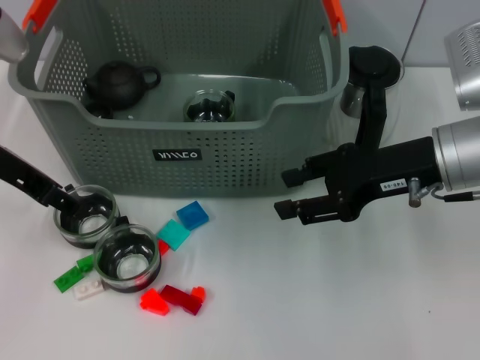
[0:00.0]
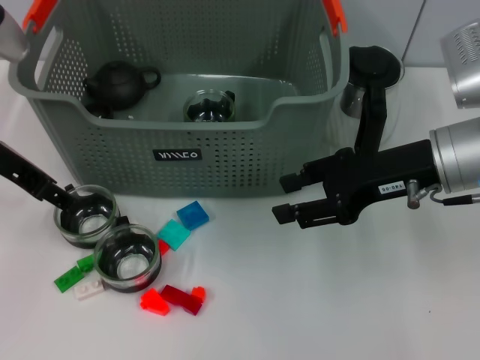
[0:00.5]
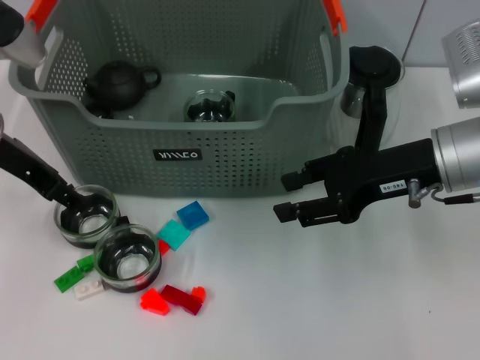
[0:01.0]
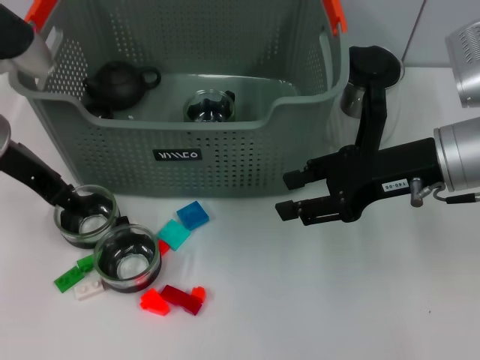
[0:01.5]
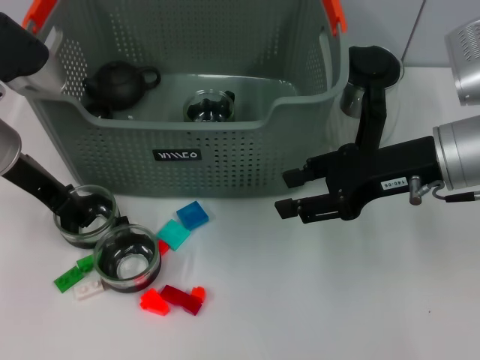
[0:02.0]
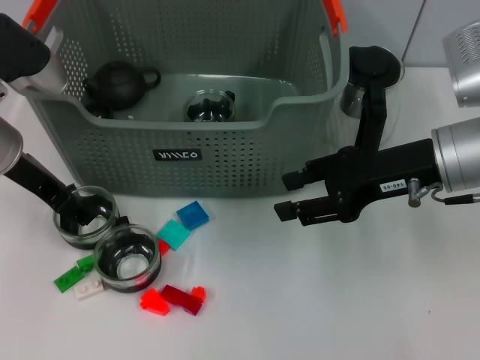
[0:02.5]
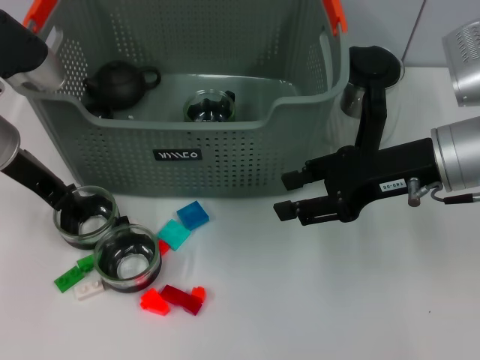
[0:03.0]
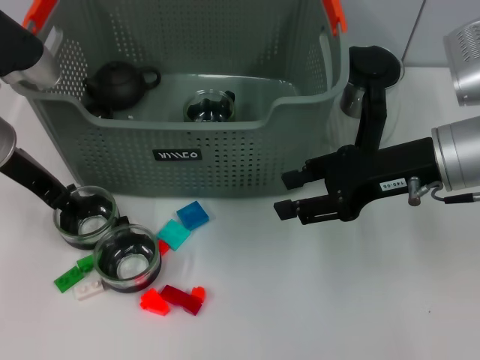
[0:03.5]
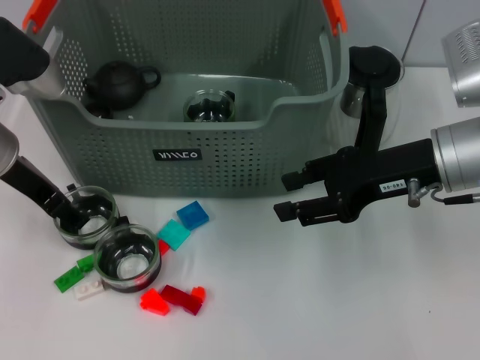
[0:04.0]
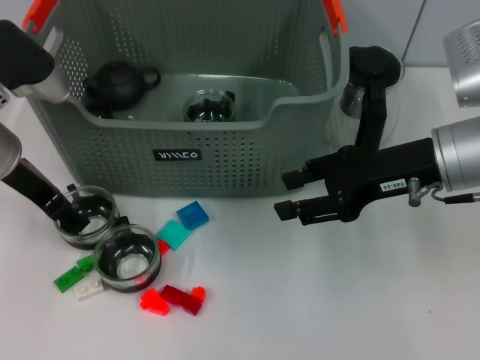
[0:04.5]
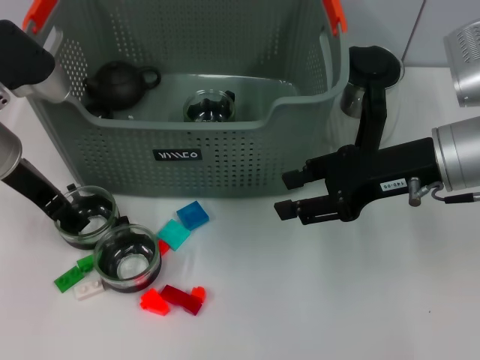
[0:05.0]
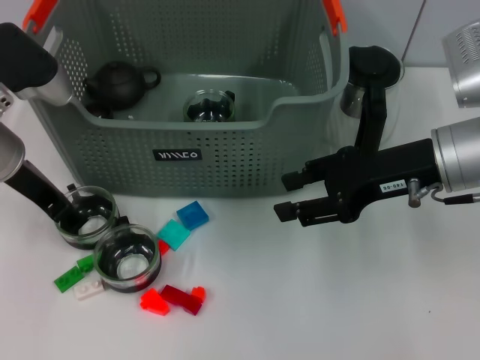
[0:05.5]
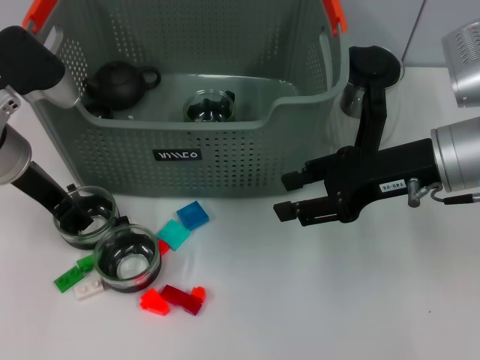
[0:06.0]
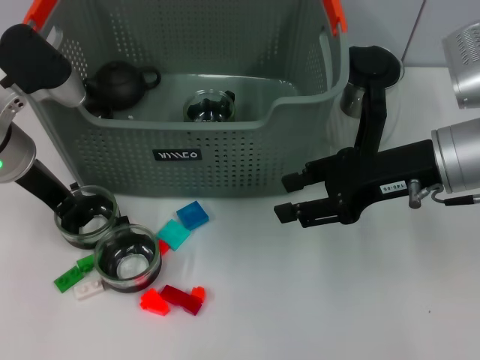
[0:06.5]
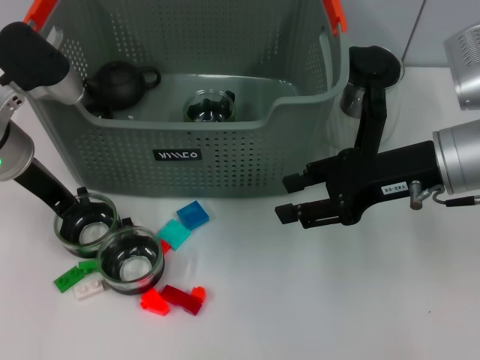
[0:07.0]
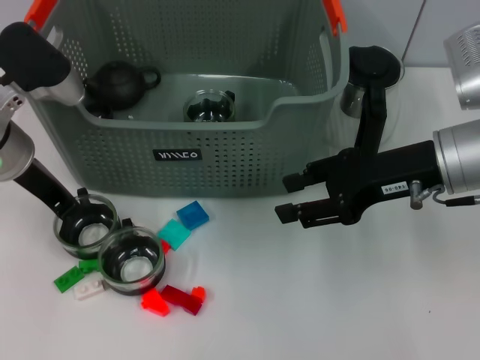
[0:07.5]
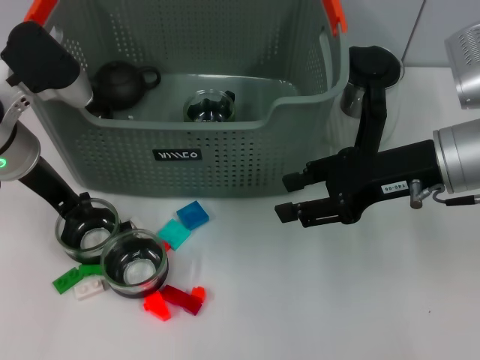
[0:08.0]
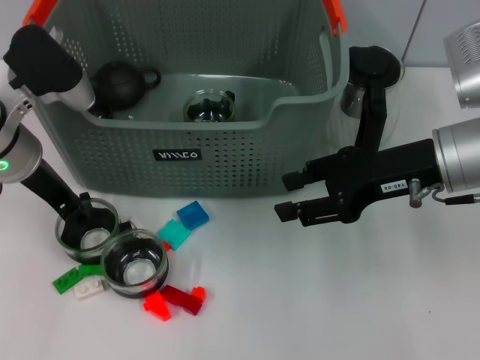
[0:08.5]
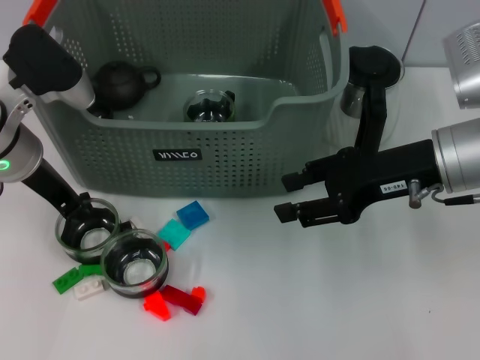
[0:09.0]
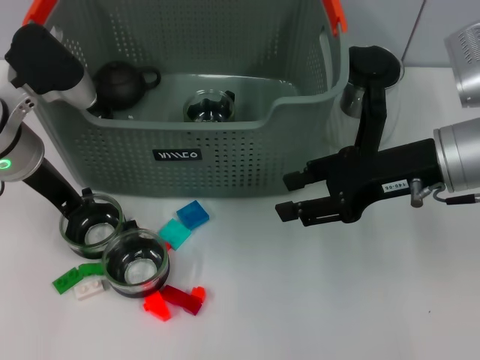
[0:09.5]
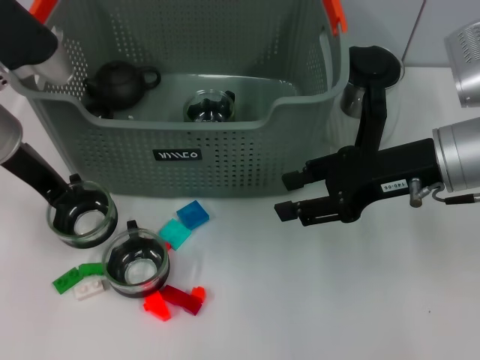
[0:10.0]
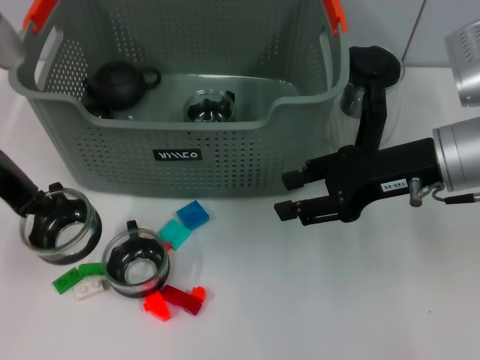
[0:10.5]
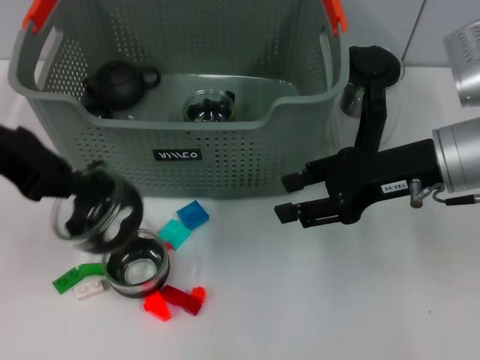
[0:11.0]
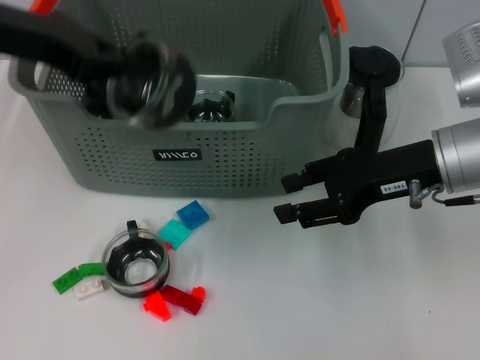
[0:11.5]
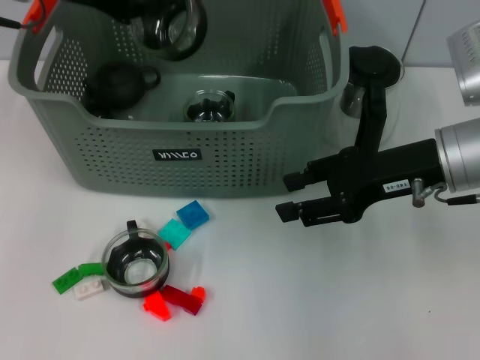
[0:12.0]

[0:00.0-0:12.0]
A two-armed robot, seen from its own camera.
Task of the whole recording: pick up the teacup on the table and place it into the storage bin, pick up the block on the table and place it into the storage bin.
Step, 0:00.0 to 0:09.5: Grasp the cup with left gripper.
0:00.0 to 0:02.0: The grippers make only small movements.
0:02.0 to 0:04.0: Neither gripper changes place.
0:04.0 to 0:06.0: Both grippers stay put.
0:06.0 to 0:08.0: The left gripper closes up.
0:08.0 to 0:10.0: There are only small adjustments of the grippers.
0:10.0 to 0:12.0: The left gripper is displaced upward and forward by approximately 10 cm.

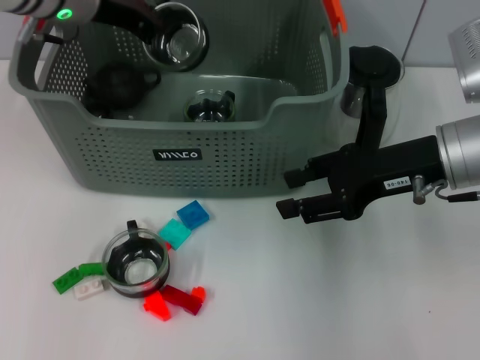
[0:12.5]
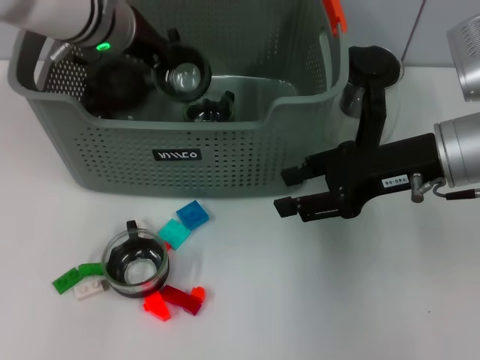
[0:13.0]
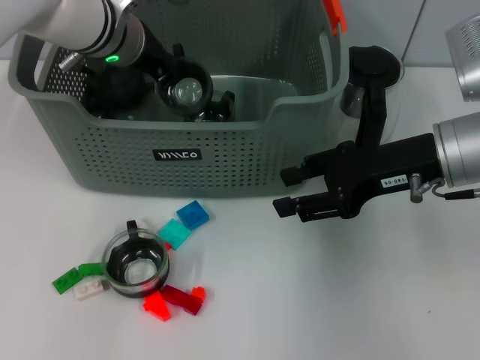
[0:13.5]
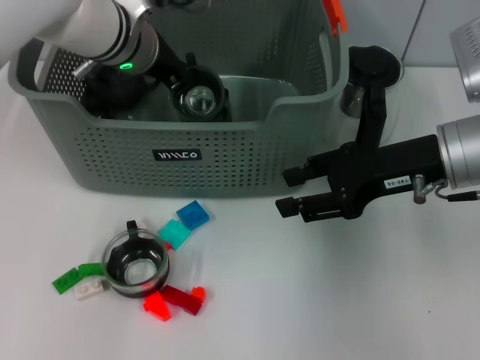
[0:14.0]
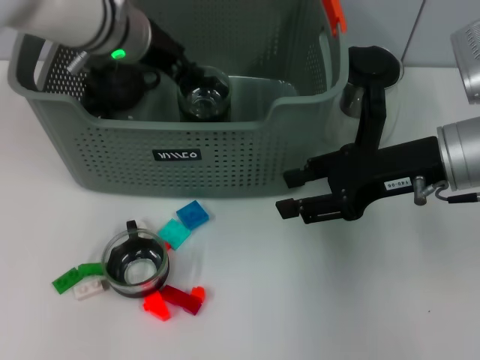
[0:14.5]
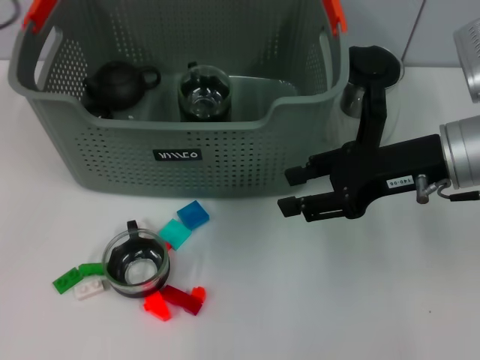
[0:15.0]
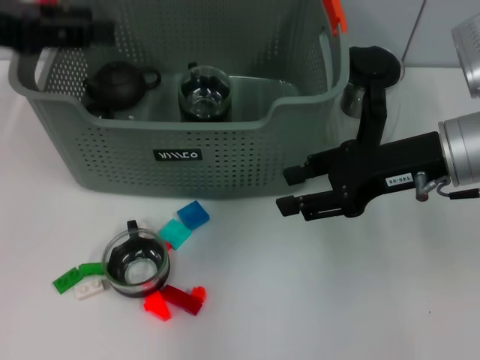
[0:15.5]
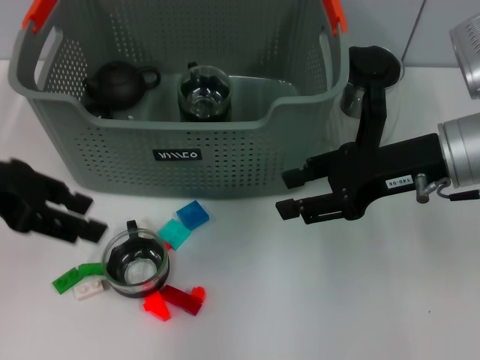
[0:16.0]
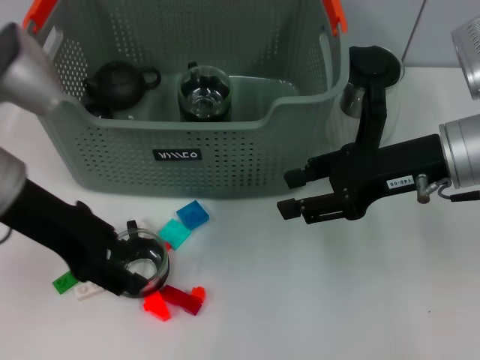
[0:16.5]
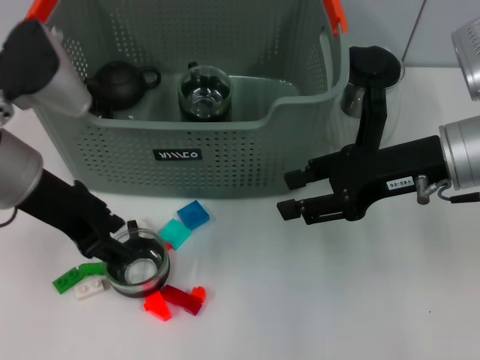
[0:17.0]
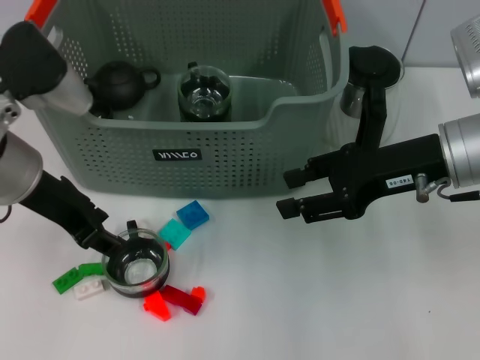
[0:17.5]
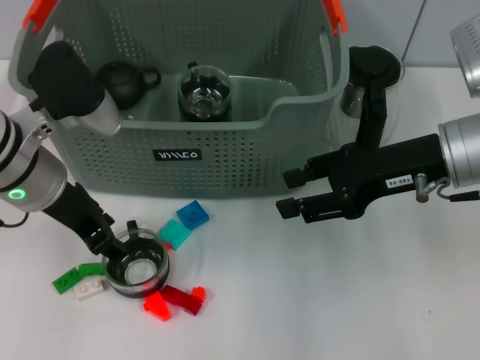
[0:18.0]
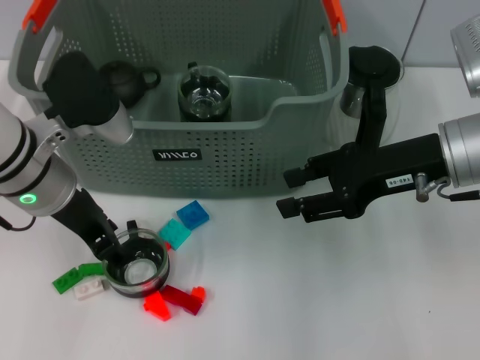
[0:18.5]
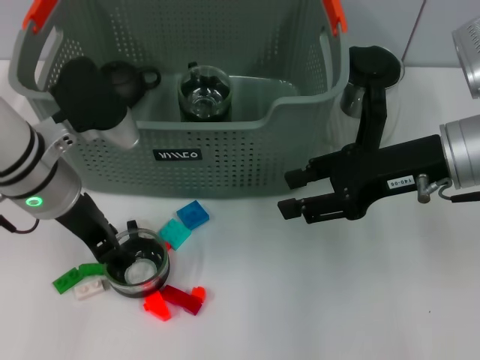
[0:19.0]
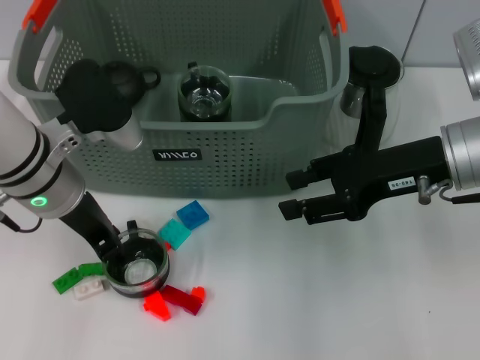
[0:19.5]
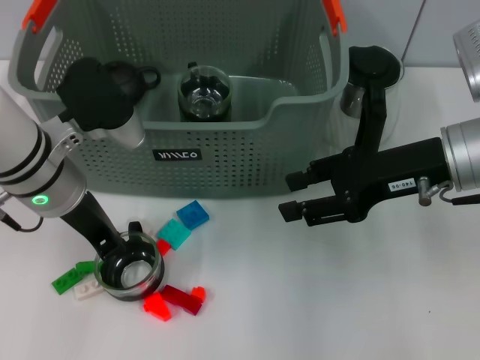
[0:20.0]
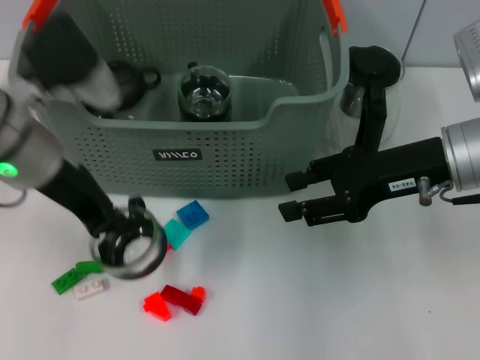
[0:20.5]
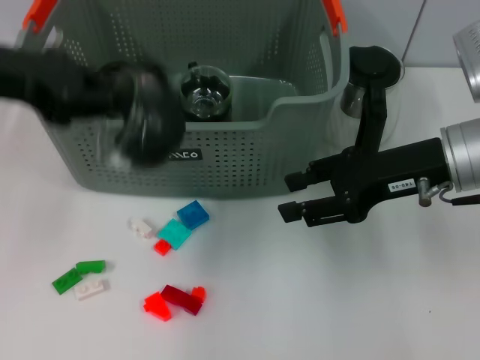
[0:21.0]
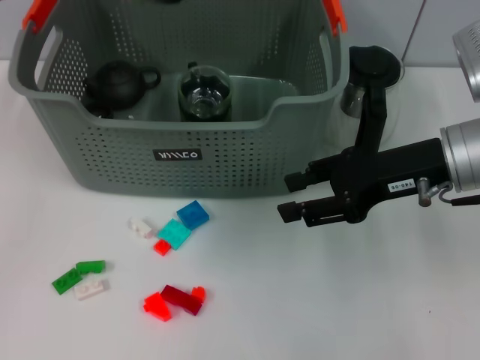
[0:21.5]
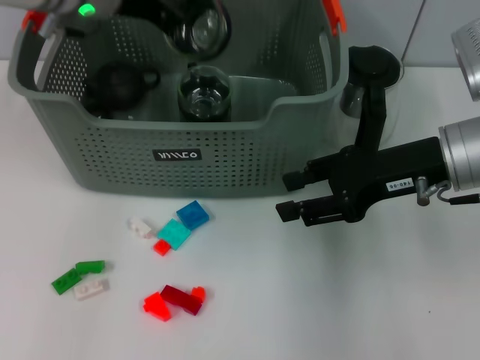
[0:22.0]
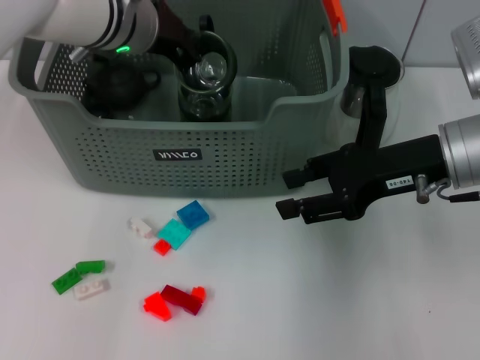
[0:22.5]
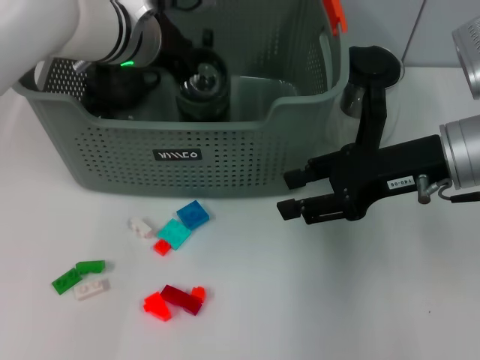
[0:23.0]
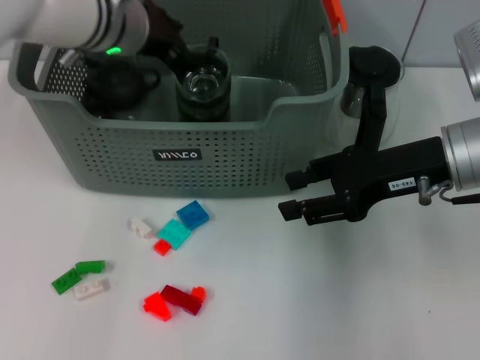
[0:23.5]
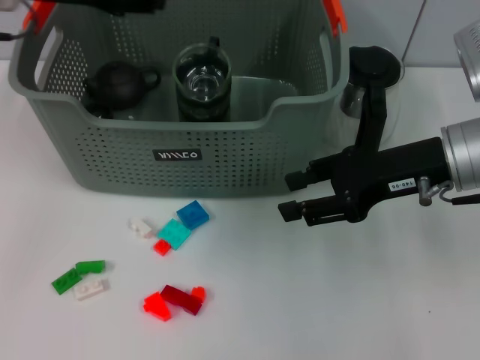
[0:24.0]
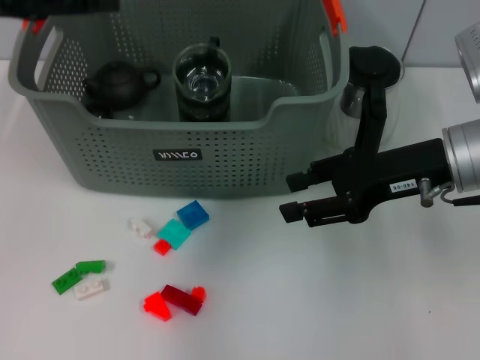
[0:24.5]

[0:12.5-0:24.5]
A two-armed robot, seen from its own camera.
Task of the whole recording: pick up the teacup on the table and place it into the storage bin, pick up the block on the table and place it into the storage bin.
Step, 0:12.5 to 0:14.5: Place the cup in the storage box with left gripper.
Step, 0:15.0 to 0:19.5: Grasp the cup with left gripper.
Step, 0:20.5 to 0:23.5: Place the cup in the storage box with left gripper.
0:12.5 to 0:14.5: The left gripper shifts by roughly 5 cm, and opens.
0:14.5 to 0:16.5: The left gripper shifts roughly 15 cm backward and to the left, and opens.
0:16.5 to 0:18.5: The left gripper shifts by roughly 5 cm.
0:18.5 to 0:20.5: The left gripper closes its fingers.
0:20.5 to 0:22.5: The left gripper is displaced forward and to the right by roughly 15 cm.
0:22.5 to 0:24.5: The left gripper goes approximately 20 cm to the left, backward and upward, and opens its fingers.

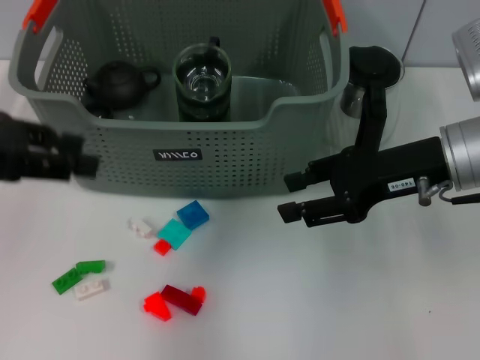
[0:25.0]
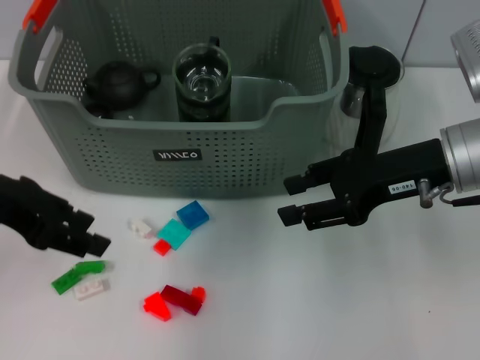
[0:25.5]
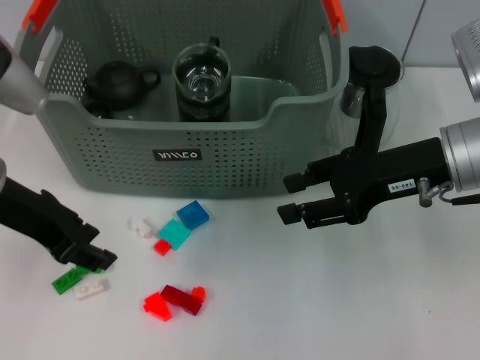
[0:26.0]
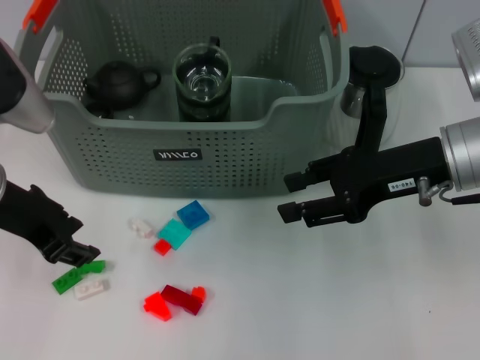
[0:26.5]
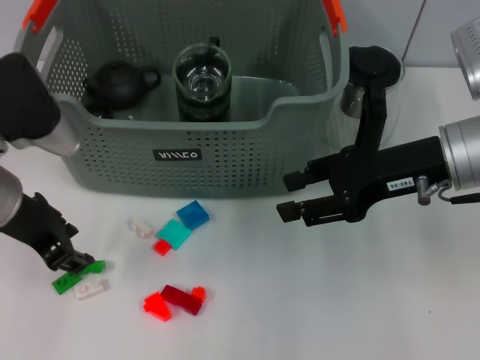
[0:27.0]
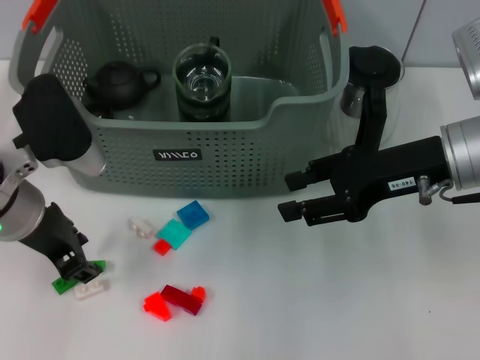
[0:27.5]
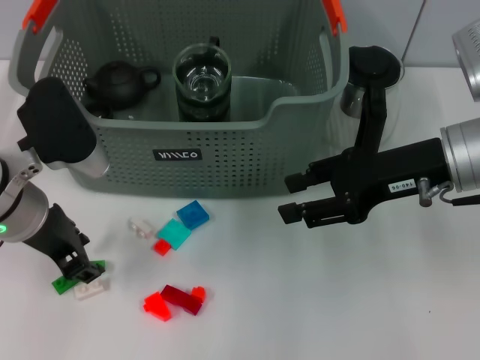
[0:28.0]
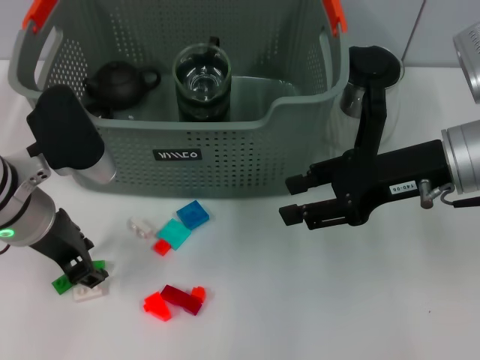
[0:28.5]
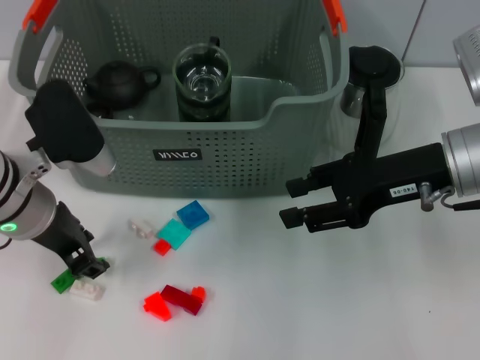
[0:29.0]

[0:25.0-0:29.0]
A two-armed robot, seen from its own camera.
Task of the whole recording: pick up the teacup on the table and place it into the storage bin, pick up the block on the table and place it into the storage bin.
0:25.0 to 0:27.0: The left gripper moves downward and to the right, roughly 10 cm.
0:27.0 to 0:29.0: The grippers stay close to where they were, moving slightly.
